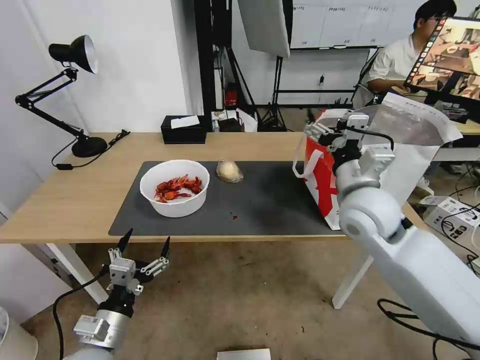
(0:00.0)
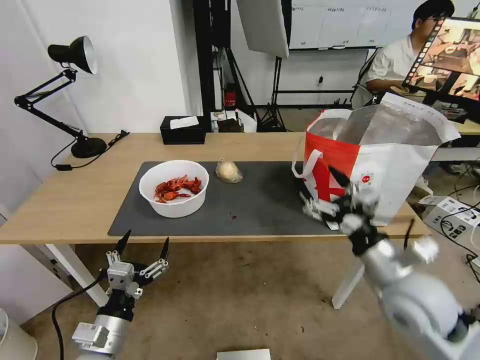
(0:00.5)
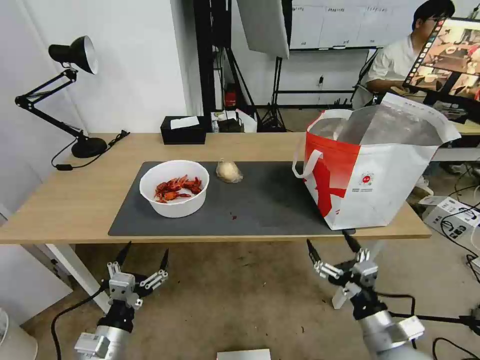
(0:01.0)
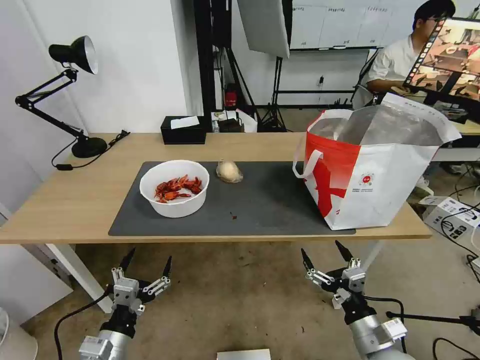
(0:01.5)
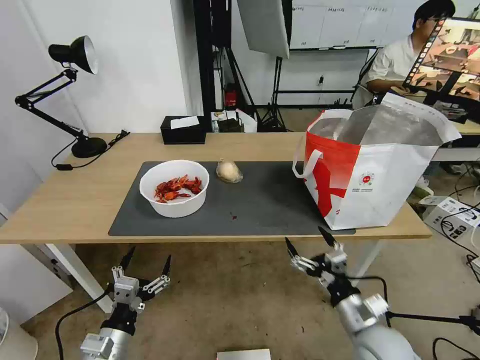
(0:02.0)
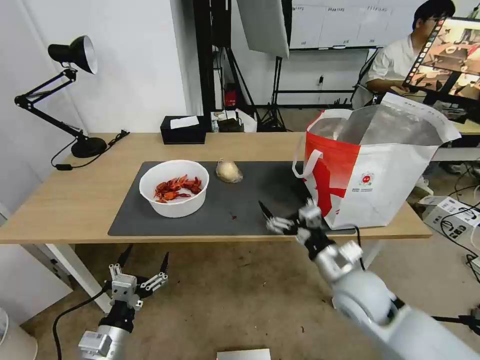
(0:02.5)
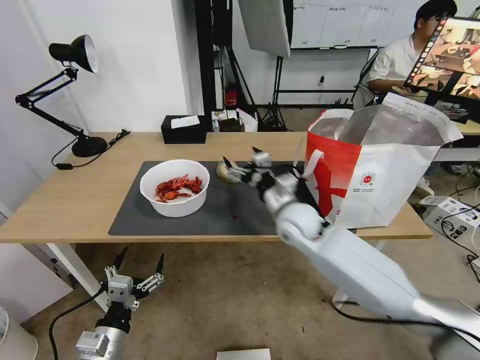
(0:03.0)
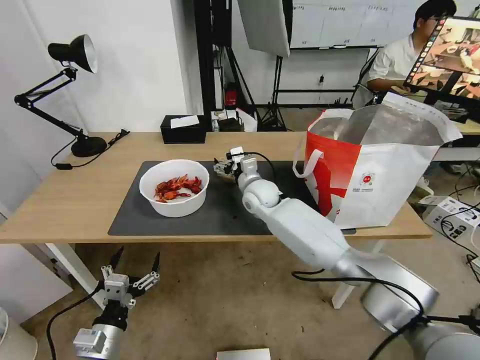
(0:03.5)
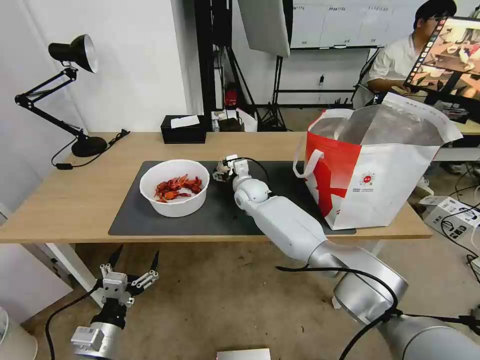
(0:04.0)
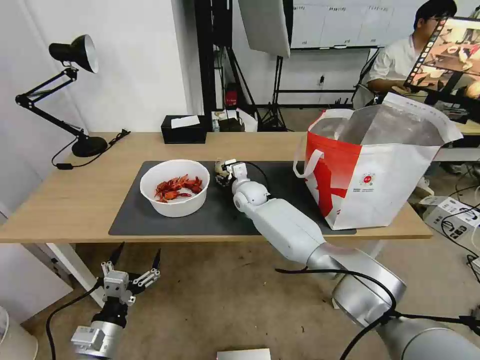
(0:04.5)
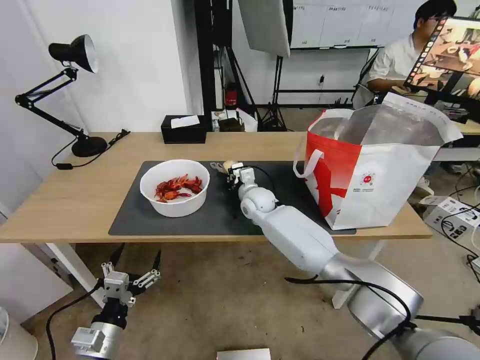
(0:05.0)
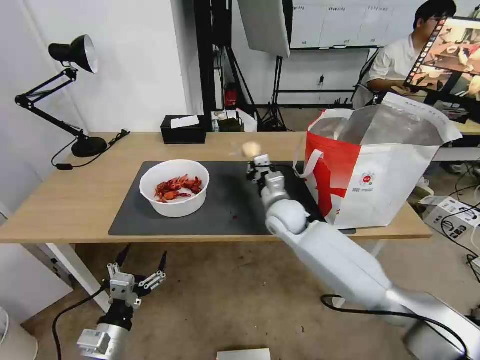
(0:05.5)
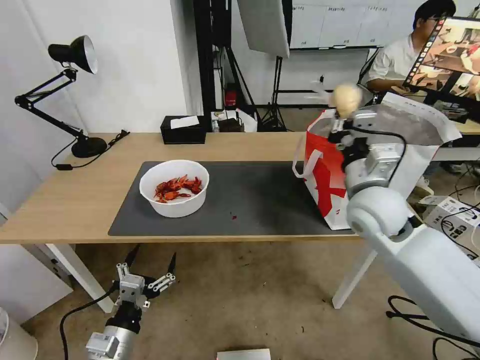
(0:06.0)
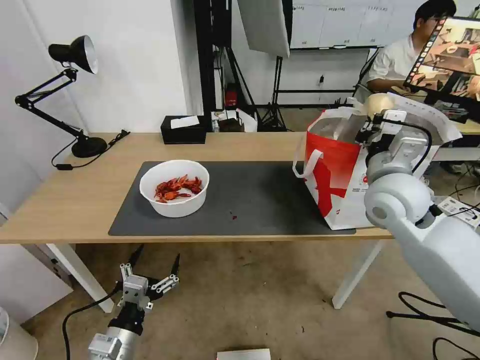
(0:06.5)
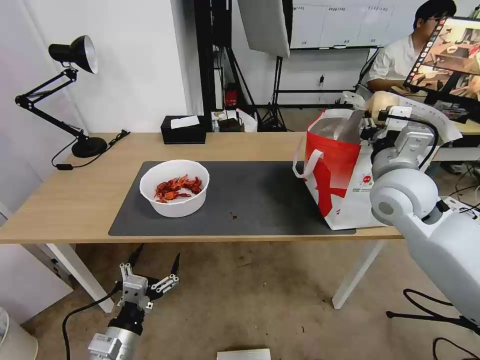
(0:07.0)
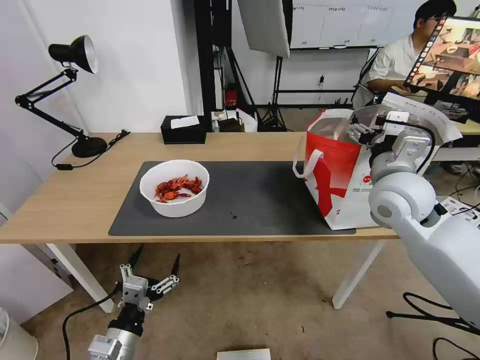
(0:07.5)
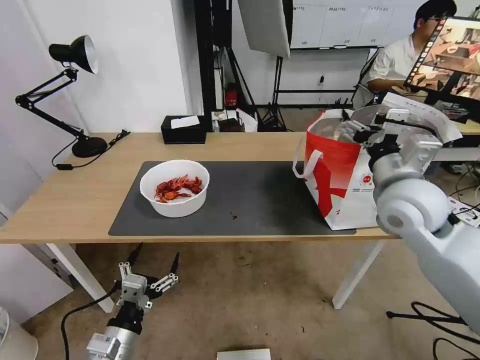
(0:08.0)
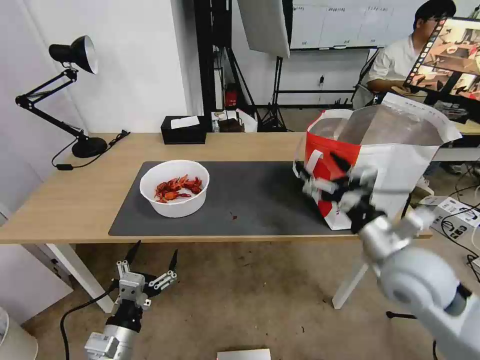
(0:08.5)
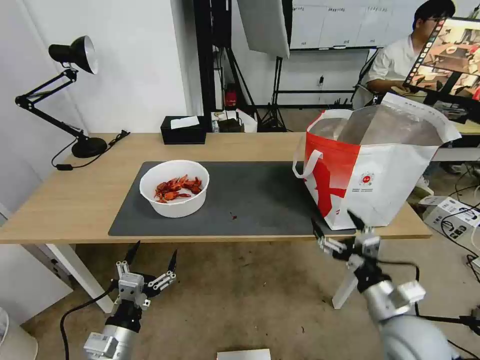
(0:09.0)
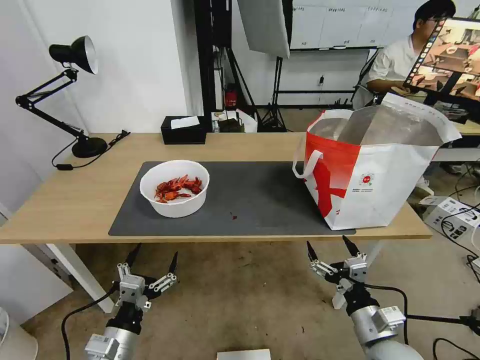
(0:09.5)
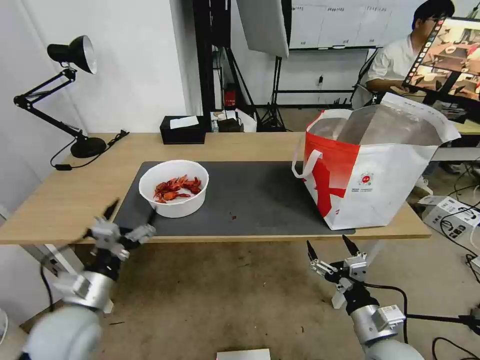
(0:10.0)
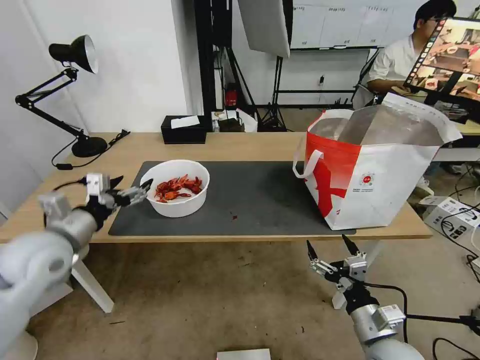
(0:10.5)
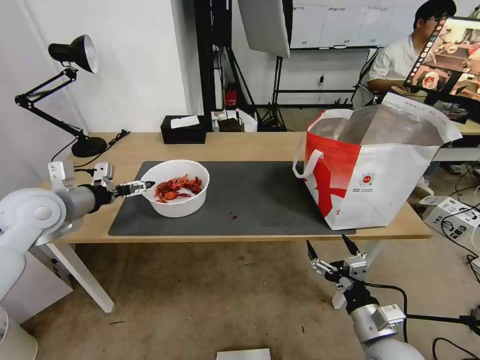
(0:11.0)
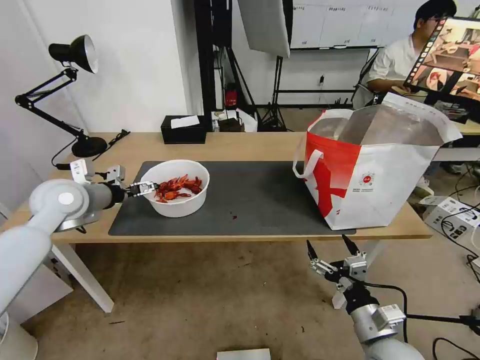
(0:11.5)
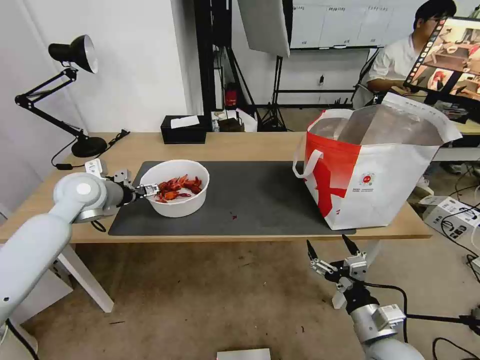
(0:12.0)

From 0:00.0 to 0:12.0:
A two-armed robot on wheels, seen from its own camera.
Task of the whole recording: Pick up the trash from the table and place it into the takeout bag.
From 0:00.0 to 0:02.0: The right gripper heads downward and backward, covering some 25 cm.
From 0:02.0 to 0:04.0: The right gripper shifts approximately 50 cm forward and to the left.
From 0:04.0 to 0:06.0: The right gripper goes roughly 30 cm to the right, backward and upward, and closes up.
From 0:06.0 to 0:08.0: The right gripper ends up some 5 cm from where it was, and opens its fingers.
From 0:08.0 to 0:10.0: The left gripper is displaced forward and upward by roughly 10 cm. The right gripper heads downward and backward, covering approximately 30 cm.
From 0:10.0 to 0:12.0: The left gripper goes approximately 25 cm forward and upward.

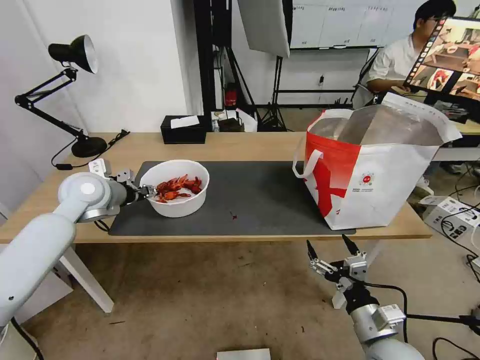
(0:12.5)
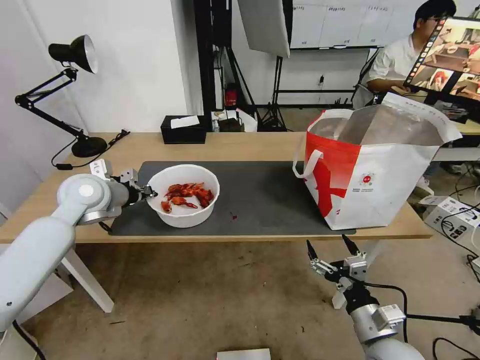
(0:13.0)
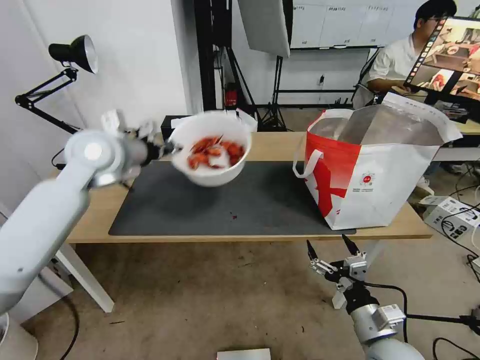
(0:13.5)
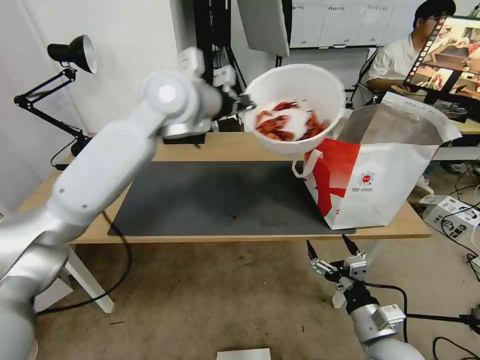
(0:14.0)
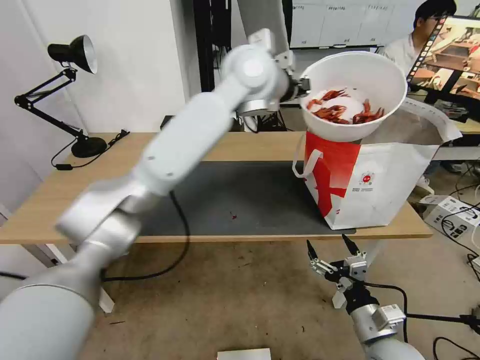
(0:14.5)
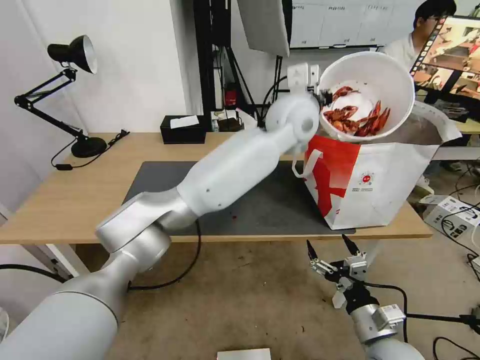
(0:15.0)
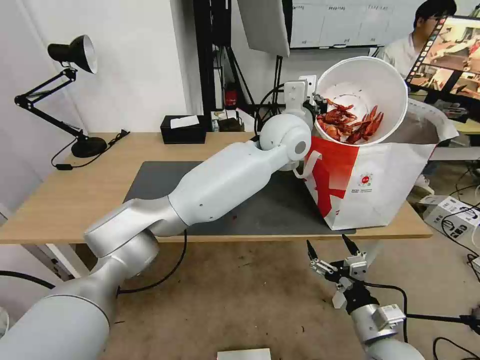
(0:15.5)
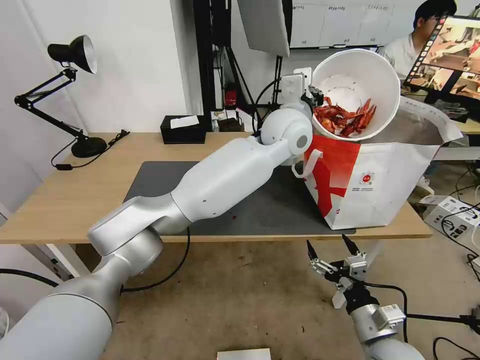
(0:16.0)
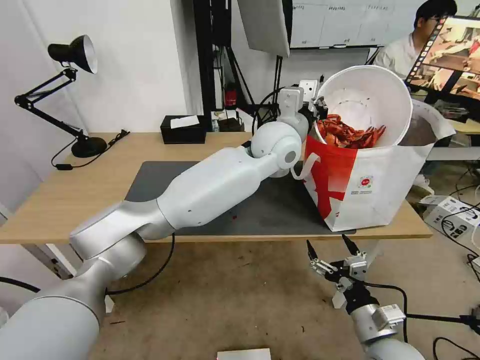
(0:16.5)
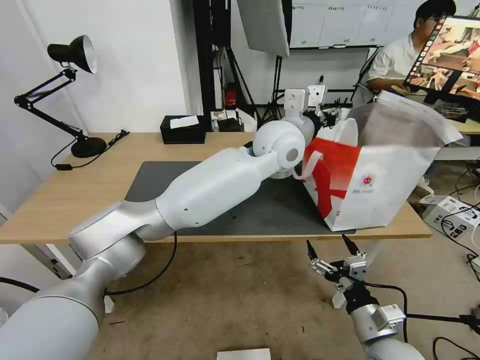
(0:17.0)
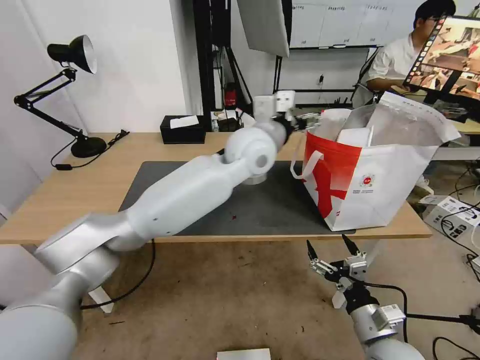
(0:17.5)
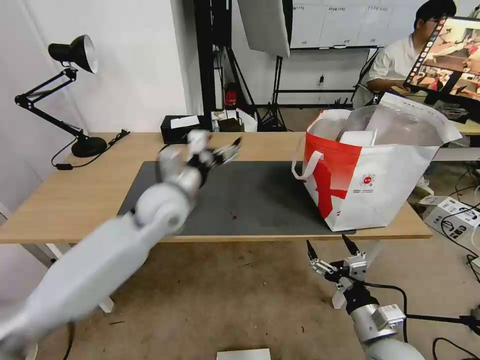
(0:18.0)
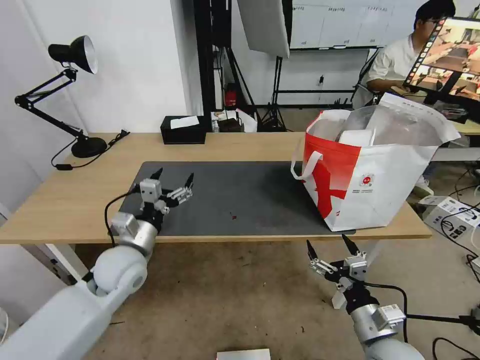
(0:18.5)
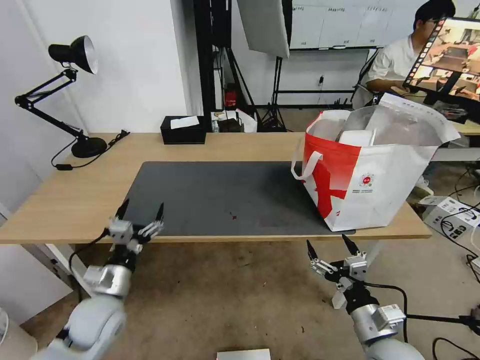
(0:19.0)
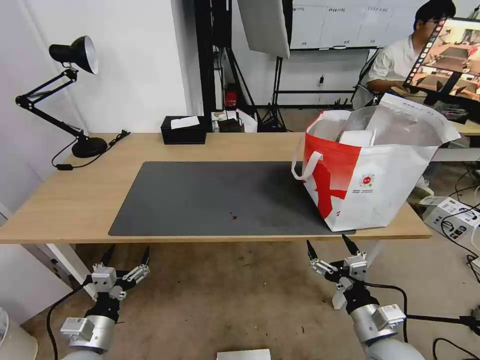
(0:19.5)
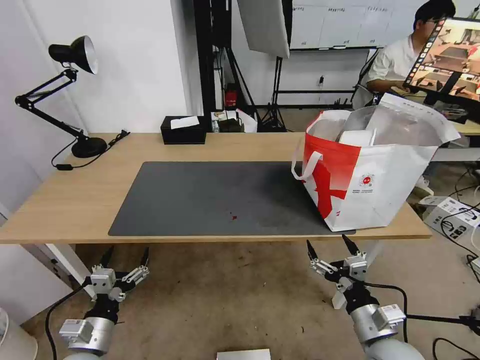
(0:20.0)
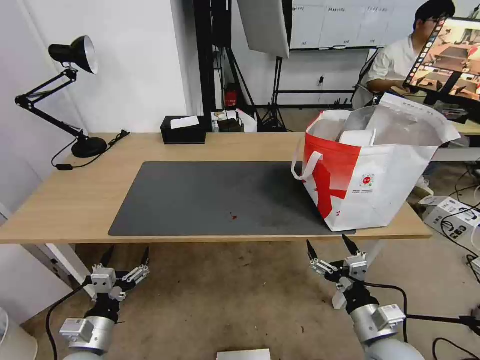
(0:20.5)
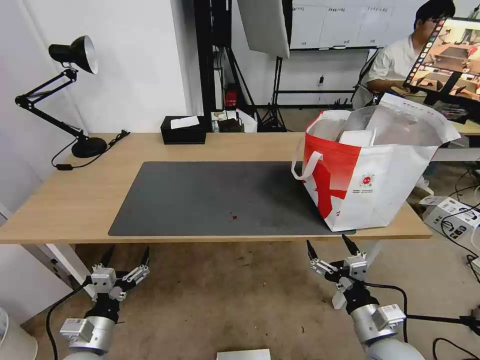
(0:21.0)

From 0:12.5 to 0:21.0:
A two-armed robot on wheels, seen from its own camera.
Task of the whole recording: Pick up the trash from the table and place it into the takeout bag.
From 0:12.5 to 0:14.5: The left gripper is displaced to the right and upward by approximately 40 cm, and closes.
From 0:14.5 to 0:16.5: The left gripper is displaced downward by roughly 10 cm.
From 0:16.5 to 0:19.0: The left gripper goes some 50 cm to the left, downward and backward, and opens its fingers.
From 0:19.0 to 0:21.0: The left gripper shifts about 10 cm backward.

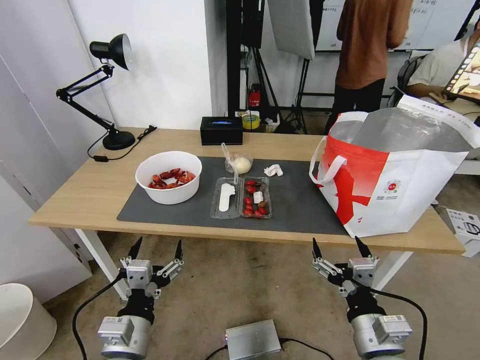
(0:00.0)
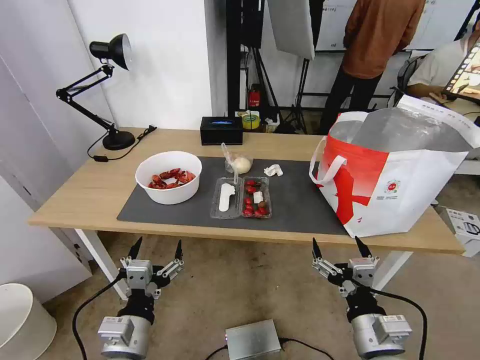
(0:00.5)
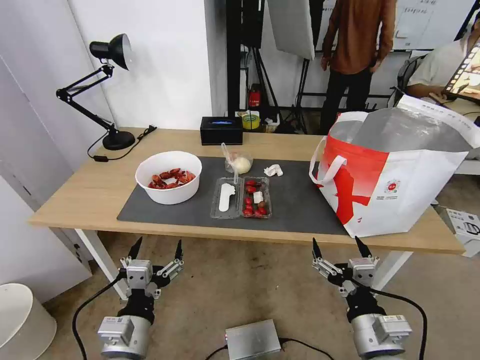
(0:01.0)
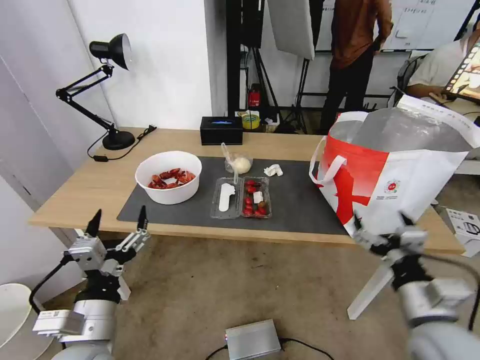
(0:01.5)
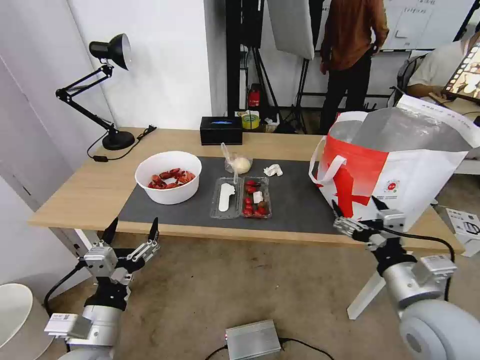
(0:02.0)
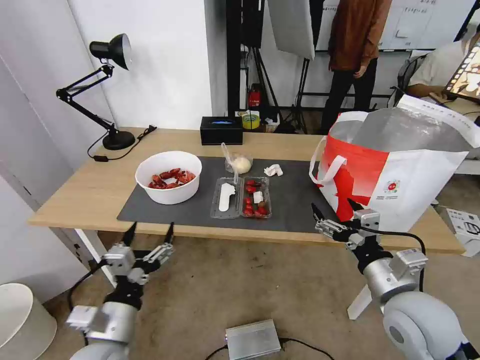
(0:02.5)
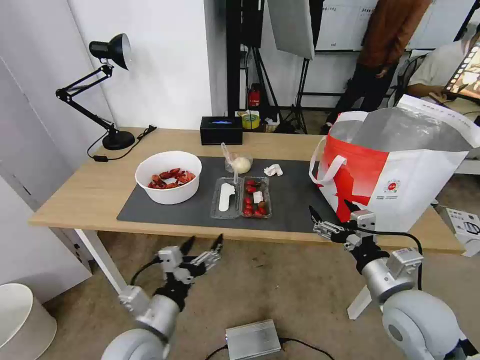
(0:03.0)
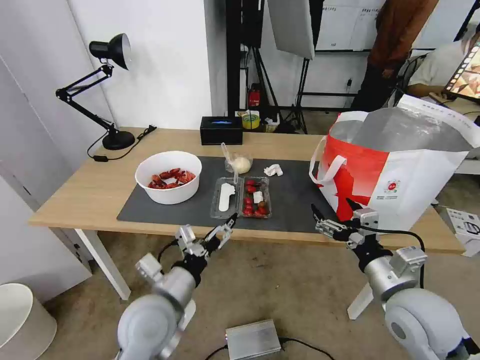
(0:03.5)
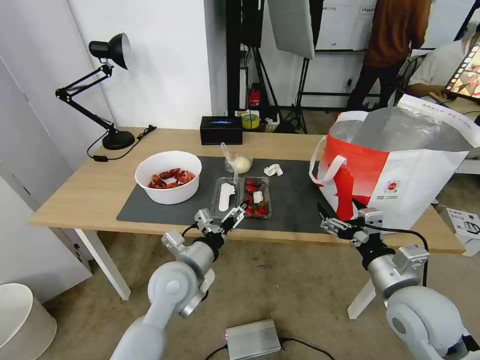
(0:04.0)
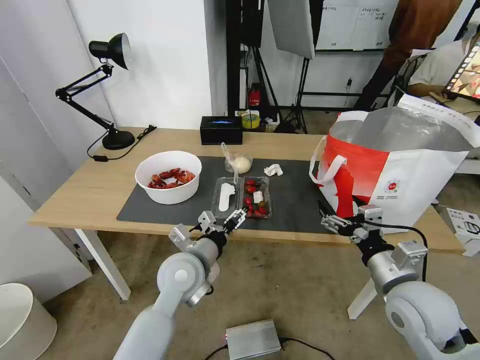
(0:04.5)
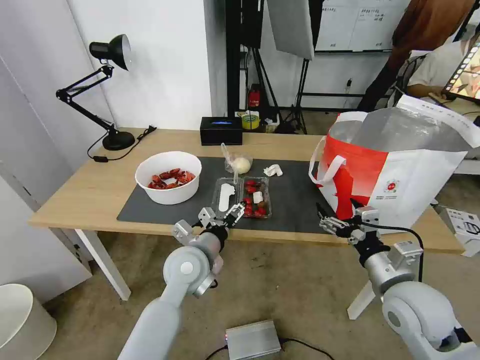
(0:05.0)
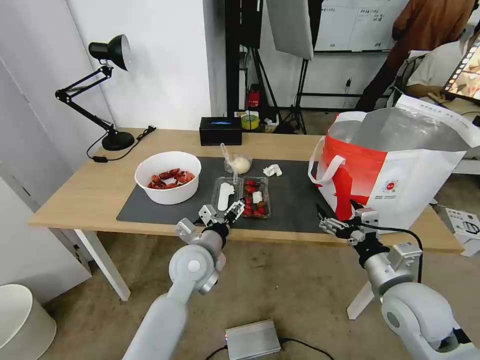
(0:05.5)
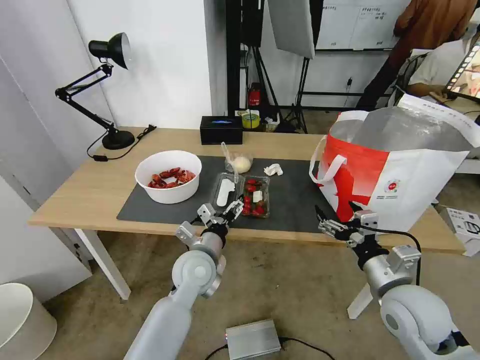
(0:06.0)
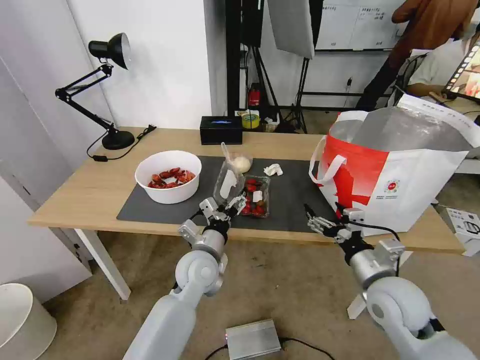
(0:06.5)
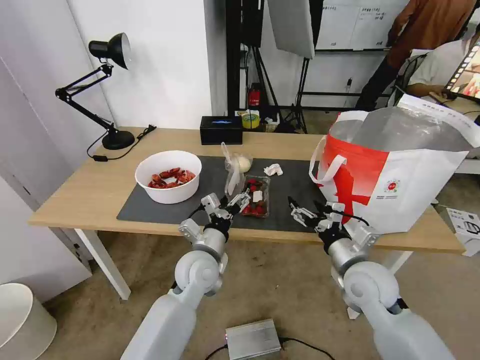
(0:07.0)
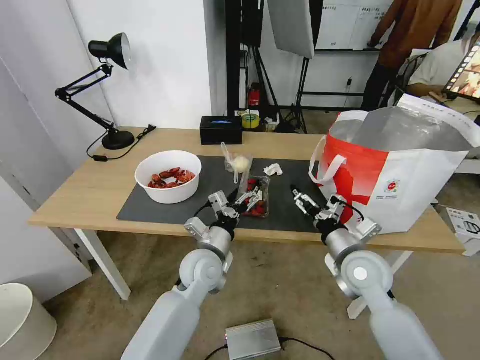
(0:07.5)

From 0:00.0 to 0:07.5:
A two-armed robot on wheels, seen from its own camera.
Task of the whole recording: Pick up the trash from the table and place it into the takeout bag.
From 0:02.0 to 0:04.0: The left gripper moves forward and to the right, approximately 20 cm.
From 0:04.0 to 0:05.5: The left gripper moves approximately 5 cm.
From 0:05.5 to 0:07.5: The right gripper shifts about 10 cm forward.
